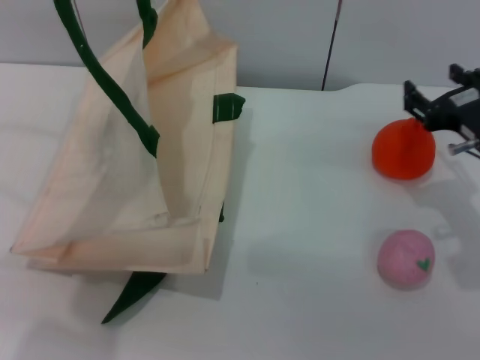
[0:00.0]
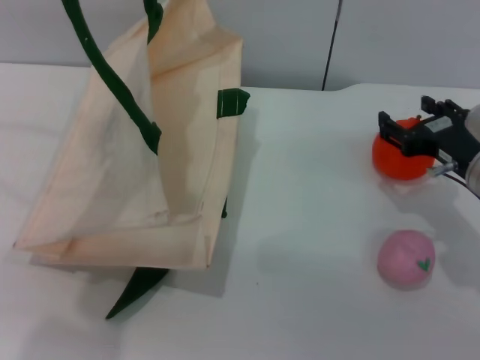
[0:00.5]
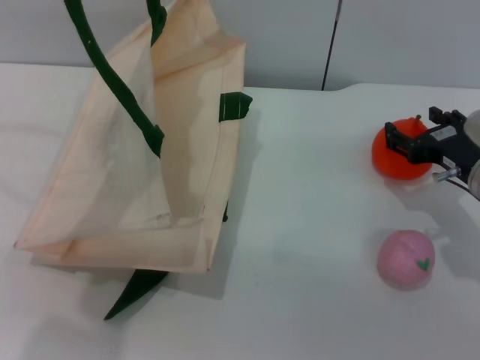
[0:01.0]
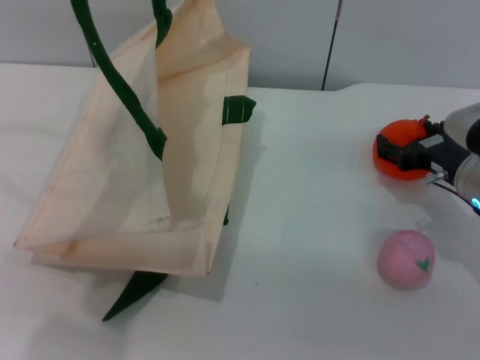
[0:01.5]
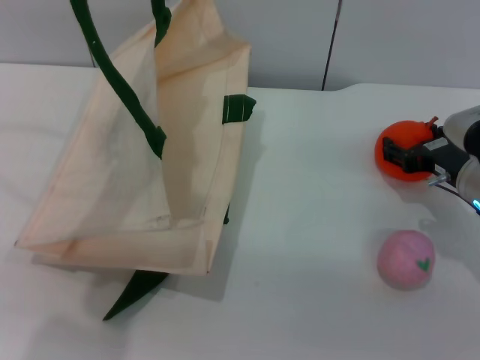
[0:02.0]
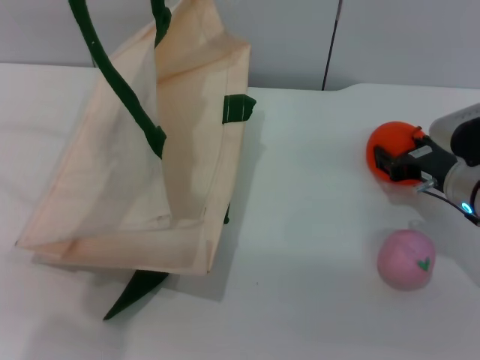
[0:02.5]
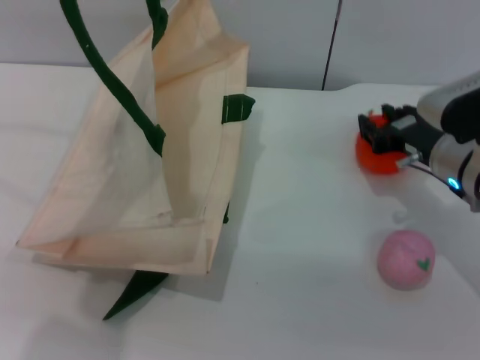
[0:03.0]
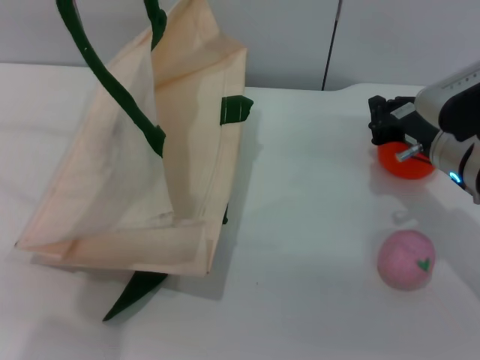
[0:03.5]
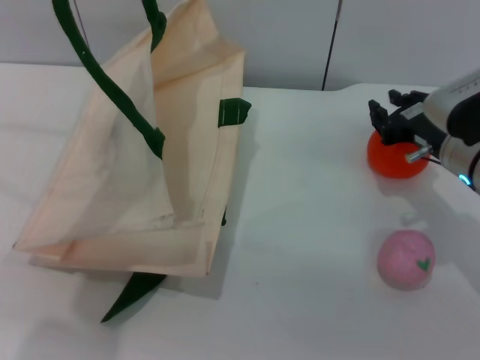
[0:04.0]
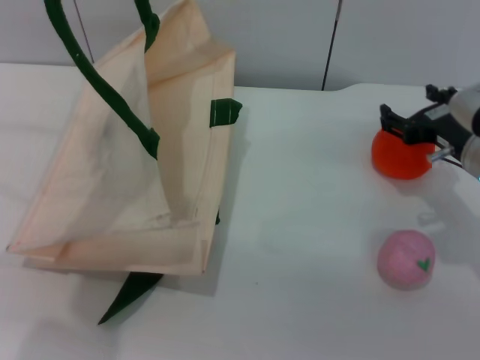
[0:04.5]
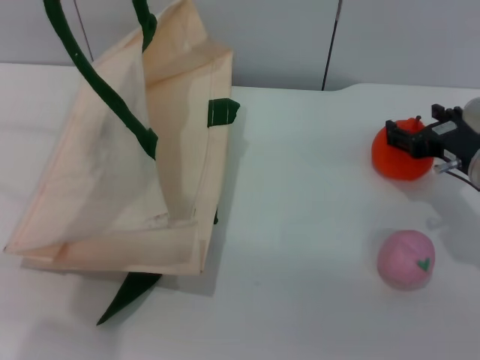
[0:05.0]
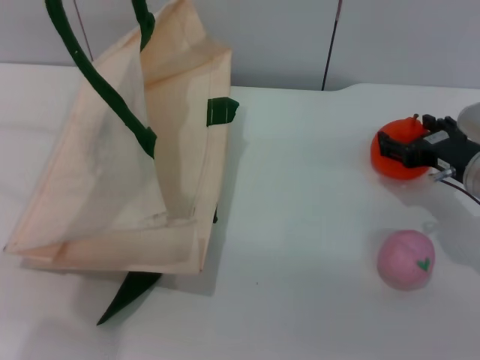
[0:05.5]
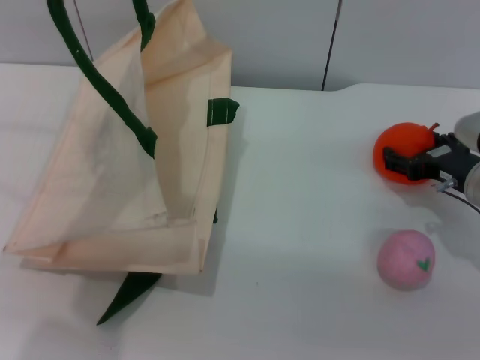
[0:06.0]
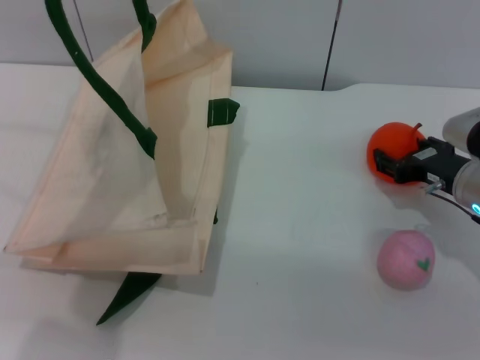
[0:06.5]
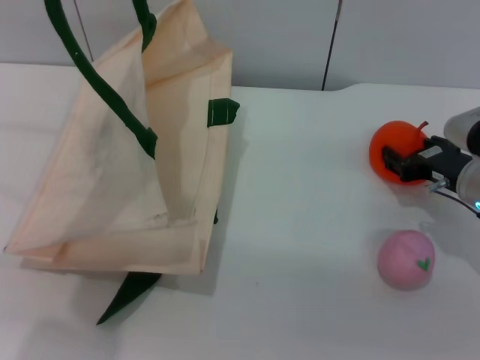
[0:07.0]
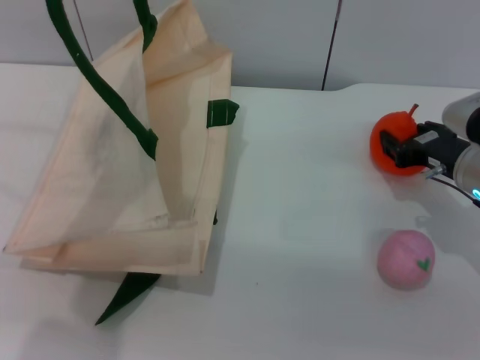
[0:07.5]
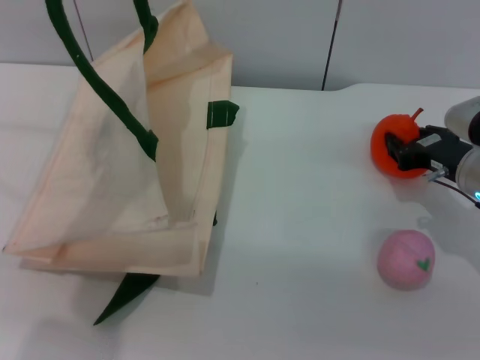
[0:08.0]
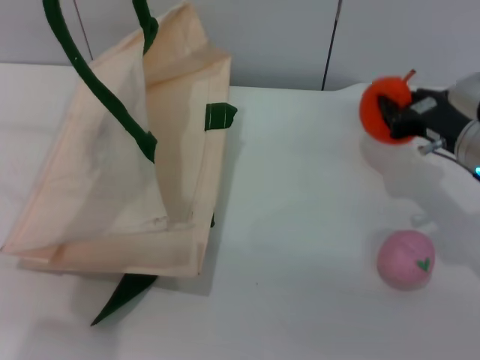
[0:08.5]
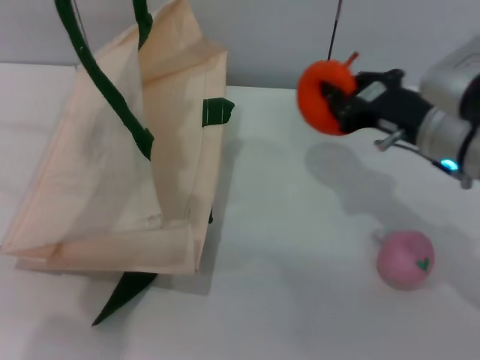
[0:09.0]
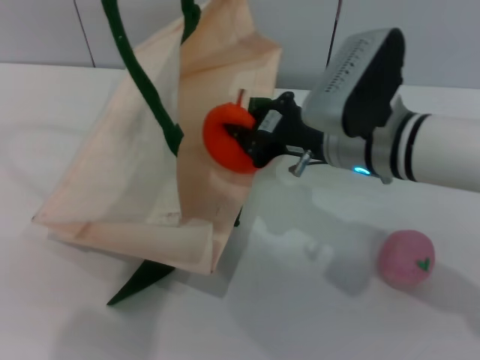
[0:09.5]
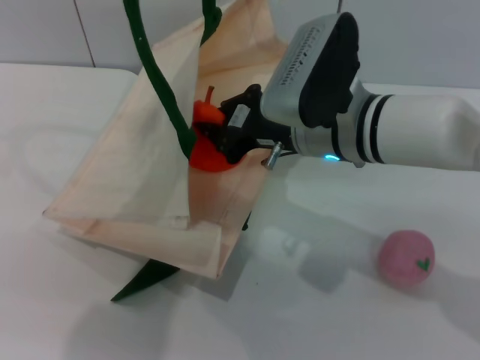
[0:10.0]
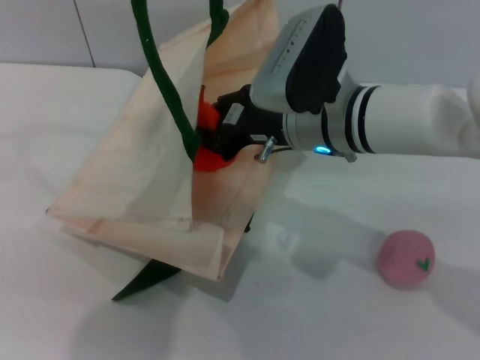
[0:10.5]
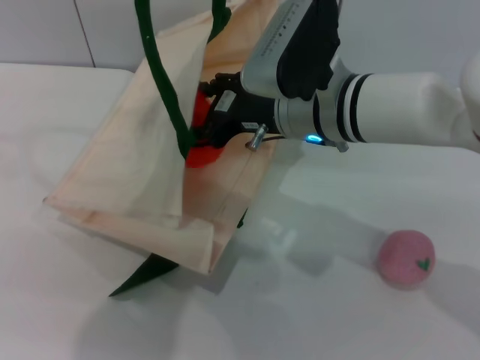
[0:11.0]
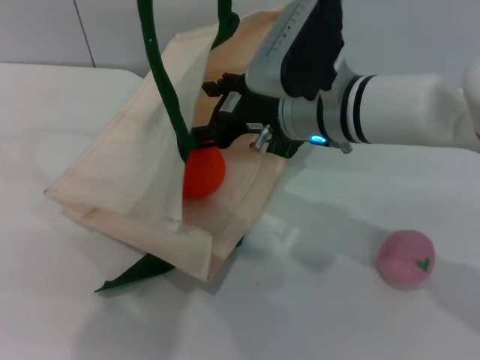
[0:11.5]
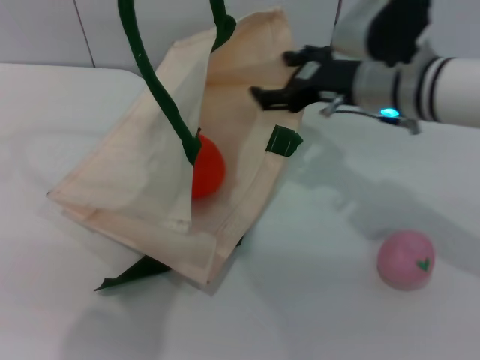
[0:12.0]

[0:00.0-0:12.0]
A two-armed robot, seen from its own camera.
Task of the whole recording: pick up the orange and peach from the table and place it in the white handbag.
Step, 0:00.0 to 0:08.5: Pick up the orange with the right gripper.
Step, 0:09.5 to 0:11.5: Place the orange into the woven bag with the right gripper.
0:00.0 to 0:02.0: The right gripper shifts about 5 cm downward.
0:02.0 to 0:04.0: The right gripper closes its fingers.
0:04.0 to 0:06.0: The right gripper ends up approximately 5 cm from where it was, and opens.
0:06.0 to 0:08.0: The right gripper closes up.
0:08.0 to 0:10.0: The left gripper travels to the right by some 5 cm, while the right gripper moves to the left and upward, roughly 20 cm, and closes its fingers.
0:10.0 to 0:12.0: The right gripper shifts approximately 5 cm to the right, and opens up.

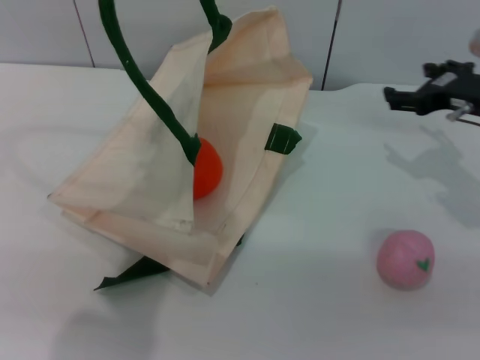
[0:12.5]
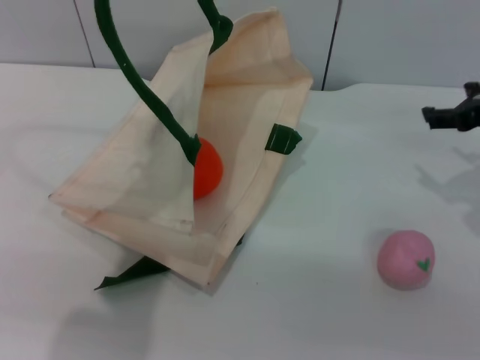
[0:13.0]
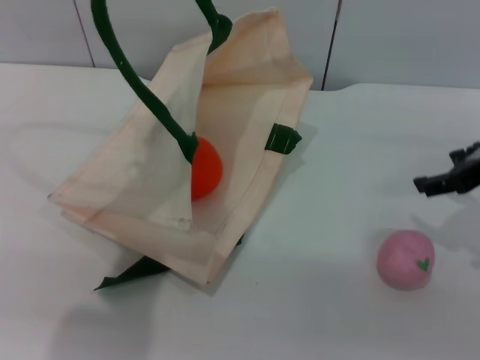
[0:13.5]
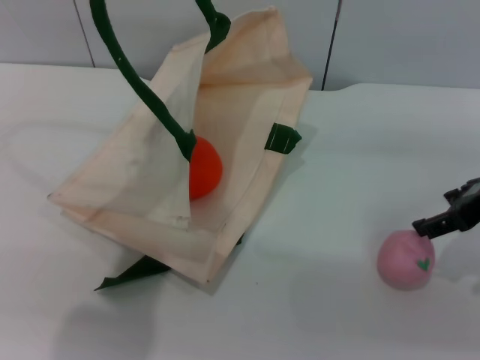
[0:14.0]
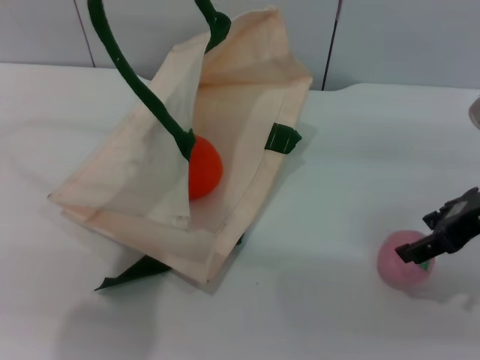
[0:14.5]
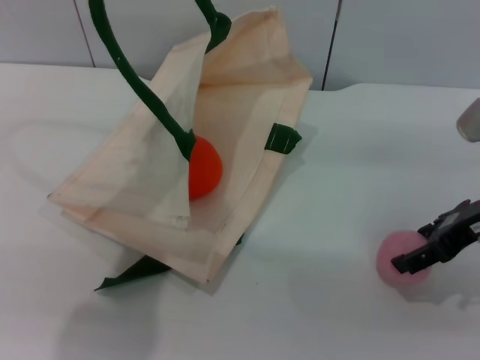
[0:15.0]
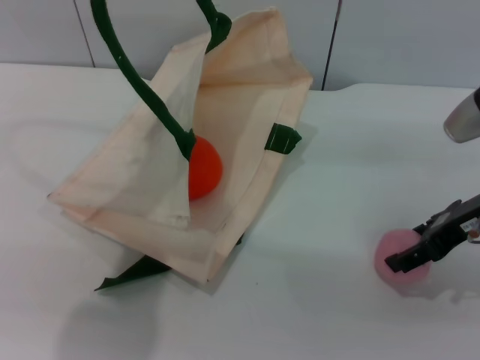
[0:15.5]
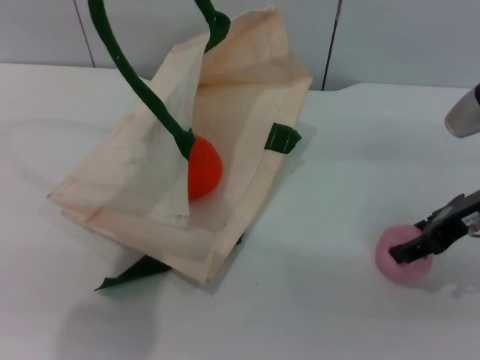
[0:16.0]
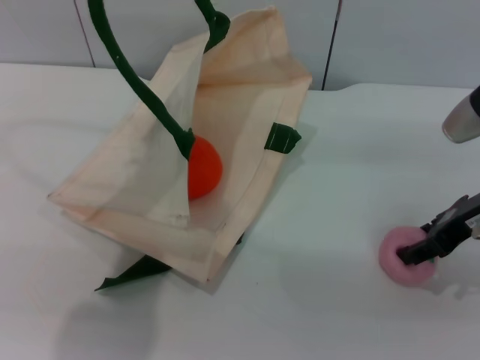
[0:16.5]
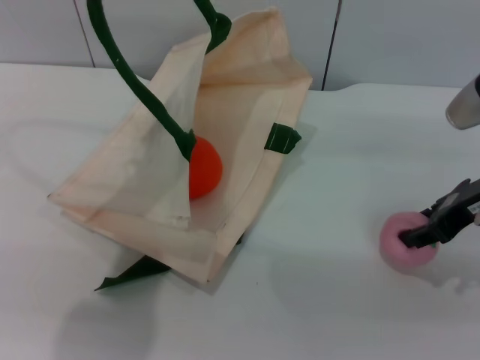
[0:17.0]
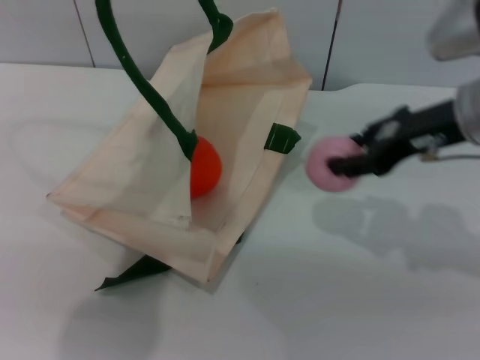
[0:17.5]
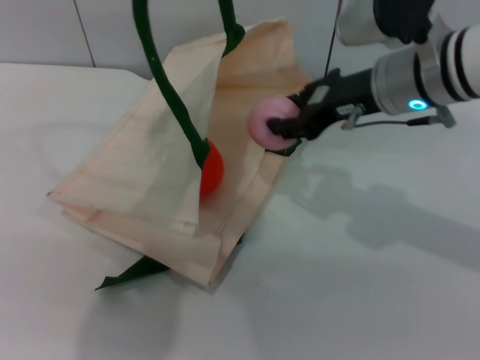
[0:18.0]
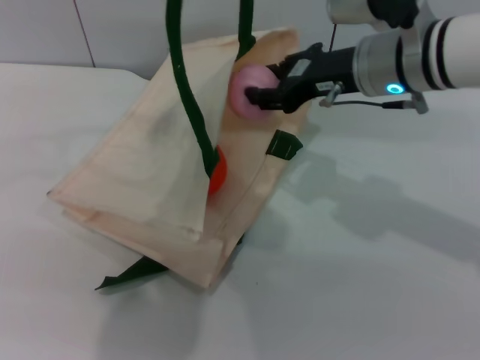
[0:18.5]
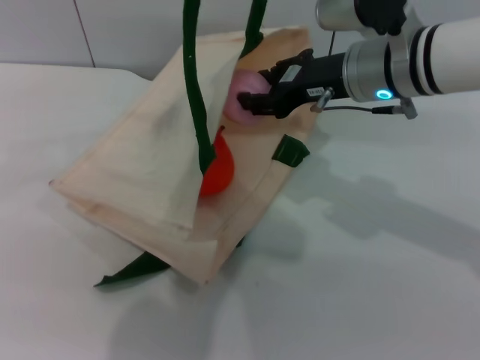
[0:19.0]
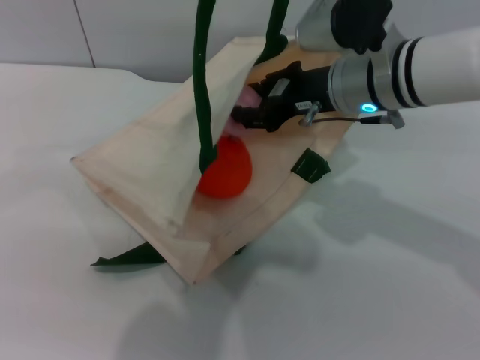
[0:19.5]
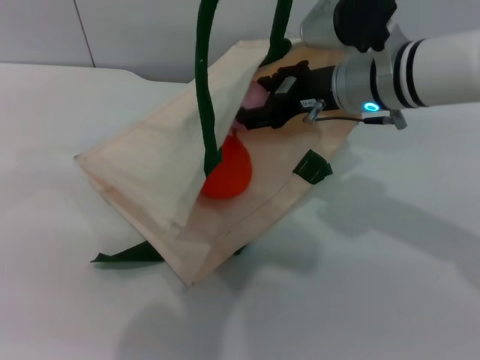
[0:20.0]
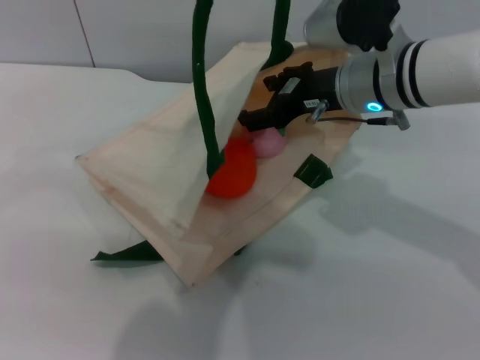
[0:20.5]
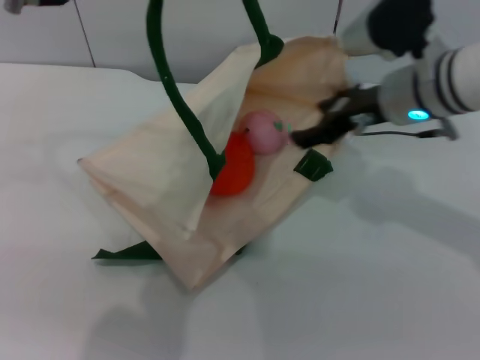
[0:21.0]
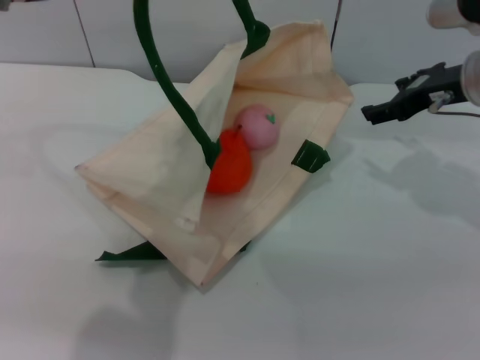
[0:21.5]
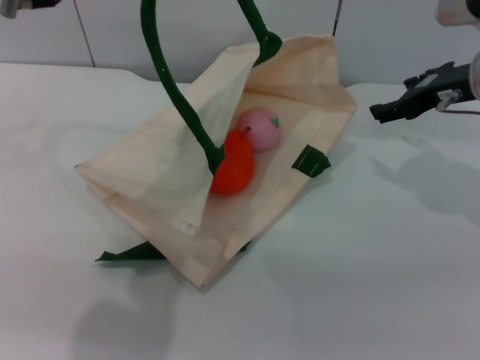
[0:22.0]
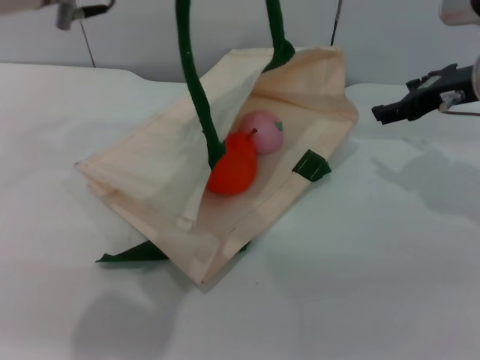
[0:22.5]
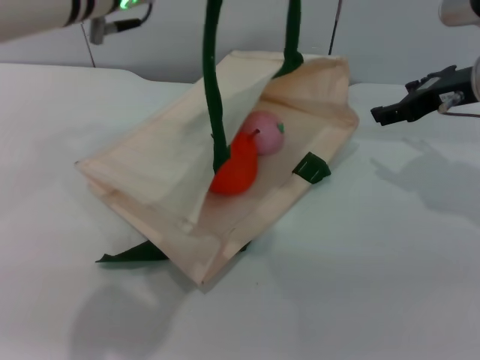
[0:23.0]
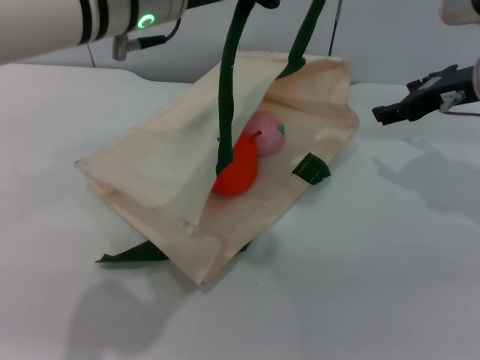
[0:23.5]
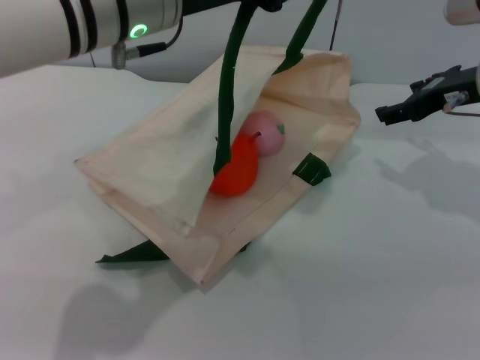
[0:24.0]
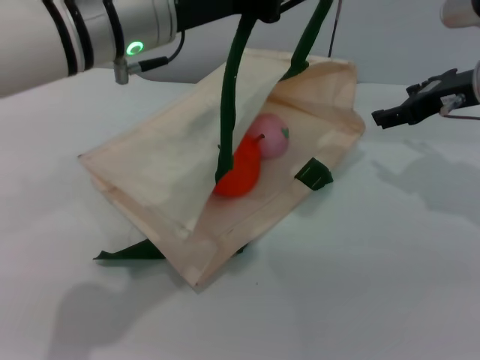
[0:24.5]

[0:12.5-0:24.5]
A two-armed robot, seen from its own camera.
Task of the whole recording: pick up the orange and peach from the table and place it in the white handbag.
Step, 0:12.5 to 0:17.0: Pick up the peach with the right gripper.
Step, 0:17.5 to 0:21.0: Place the peach into the woven bag with the right gripper.
0:12.5 to 0:14.5: The right gripper shifts about 10 cm backward.
0:14.5 to 0:16.5: The grippers make only small movements.
0:16.5 to 0:18.5: The right gripper travels to the left and forward by roughly 15 cm. Meanwhile the left gripper travels to the right by approximately 5 cm.
0:18.5 to 0:20.5: The right gripper opens up.
0:20.5 to 0:22.5: The right gripper is displaced to the right by some 10 cm; the left gripper shifts by approximately 5 cm, and opens its fingers.

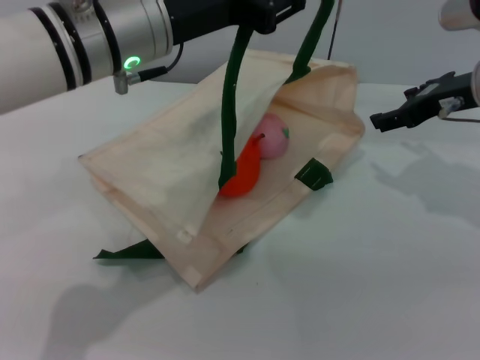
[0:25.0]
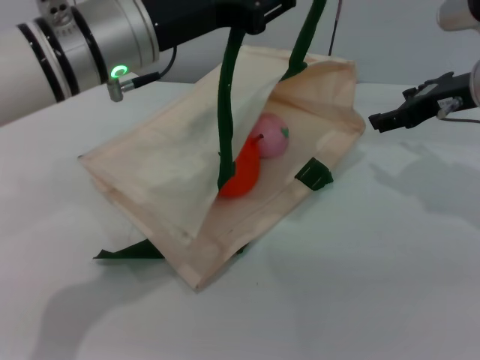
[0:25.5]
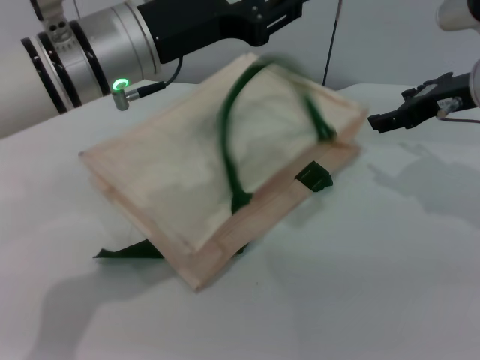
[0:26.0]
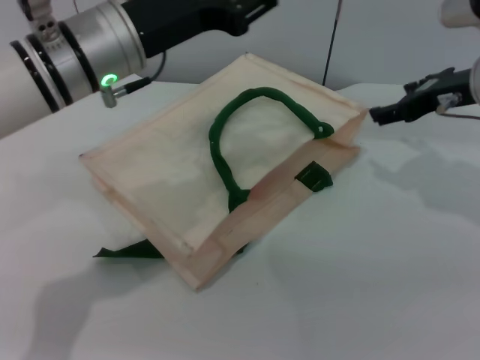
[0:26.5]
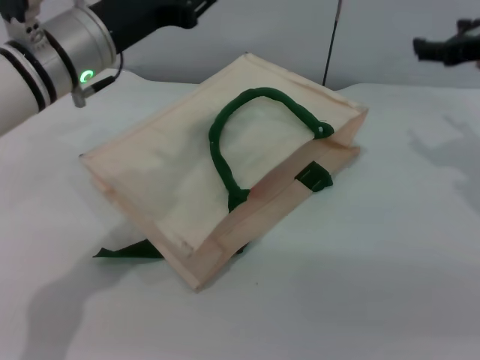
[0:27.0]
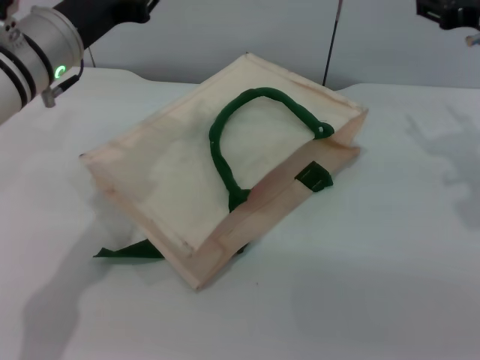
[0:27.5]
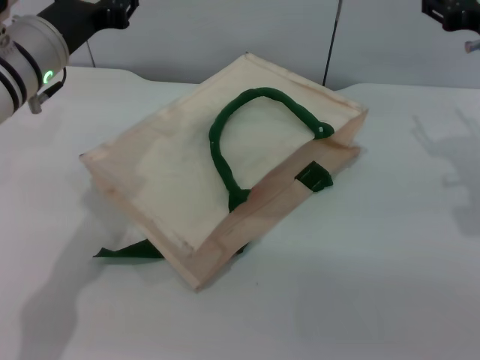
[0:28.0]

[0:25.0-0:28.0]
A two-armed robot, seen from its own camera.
Task of the whole recording: pick up the orange and peach from the table and place it in the white handbag.
0:25.0 to 0:26.5: There are only small adjustments of the grippers.
0:26.5 to 0:28.0: The left gripper goes roughly 5 cm to the left.
